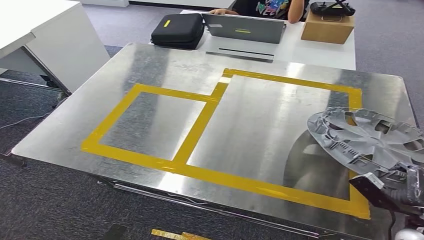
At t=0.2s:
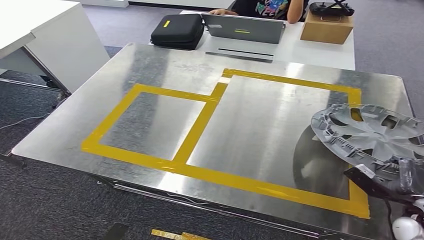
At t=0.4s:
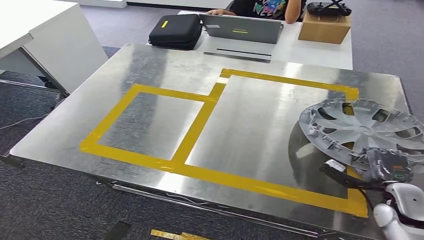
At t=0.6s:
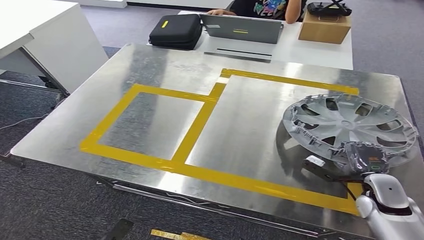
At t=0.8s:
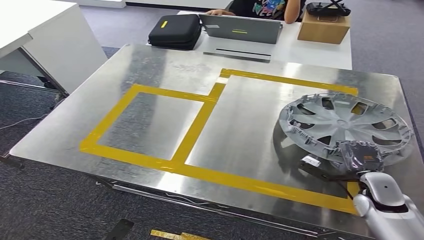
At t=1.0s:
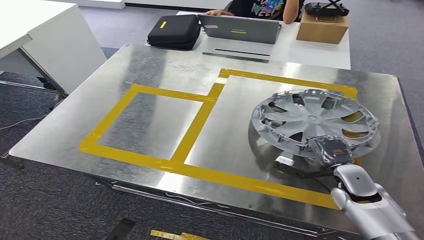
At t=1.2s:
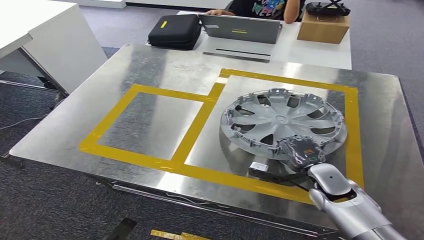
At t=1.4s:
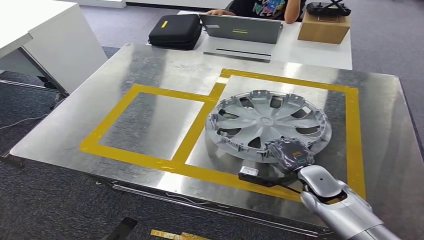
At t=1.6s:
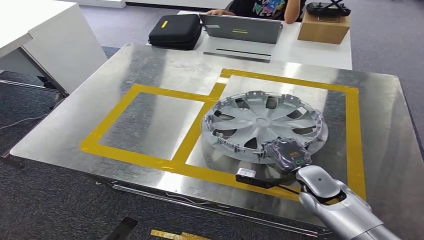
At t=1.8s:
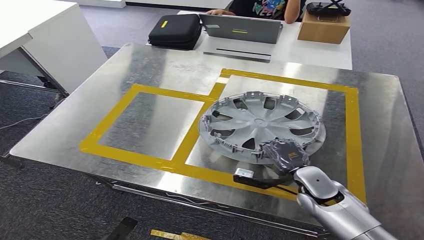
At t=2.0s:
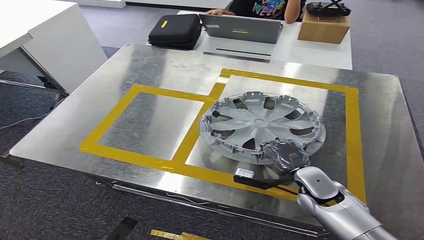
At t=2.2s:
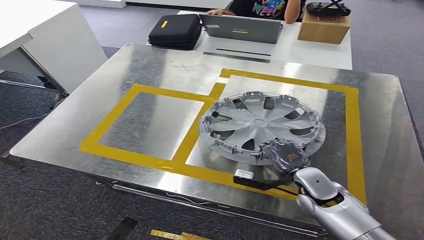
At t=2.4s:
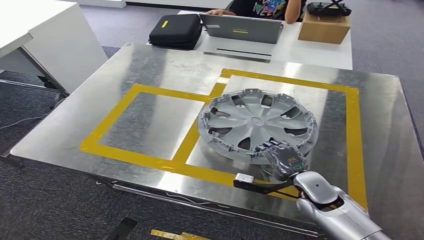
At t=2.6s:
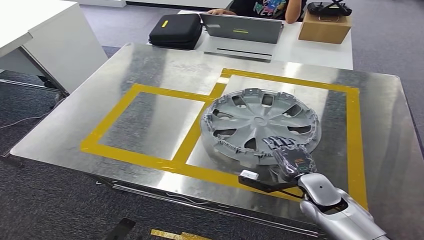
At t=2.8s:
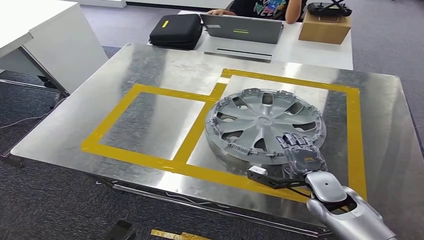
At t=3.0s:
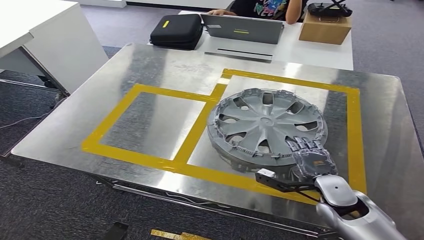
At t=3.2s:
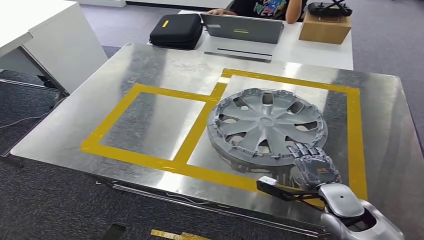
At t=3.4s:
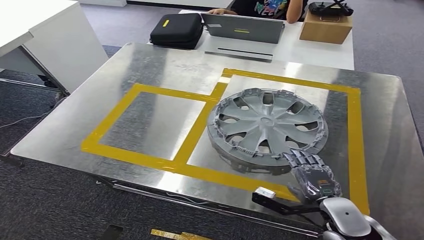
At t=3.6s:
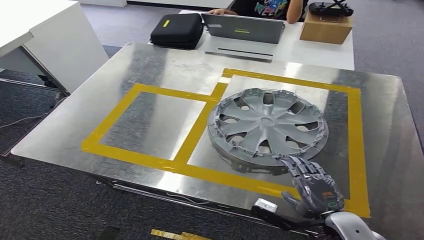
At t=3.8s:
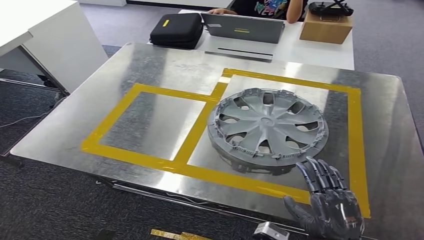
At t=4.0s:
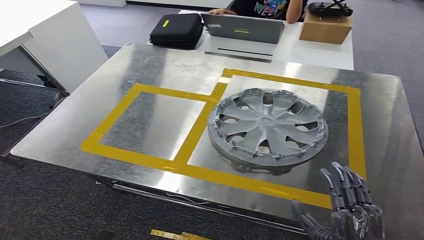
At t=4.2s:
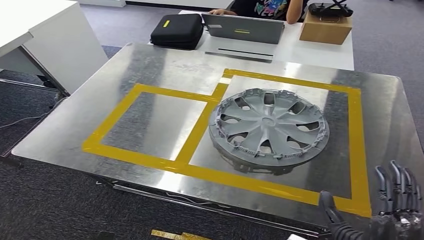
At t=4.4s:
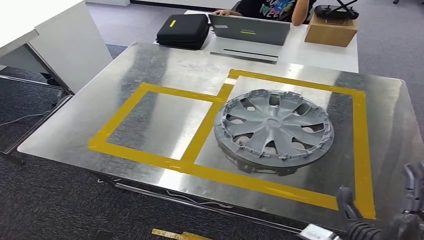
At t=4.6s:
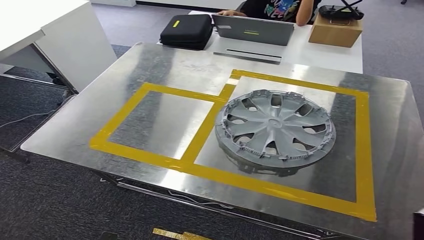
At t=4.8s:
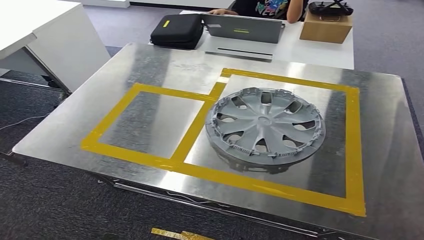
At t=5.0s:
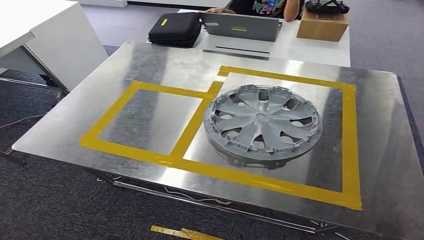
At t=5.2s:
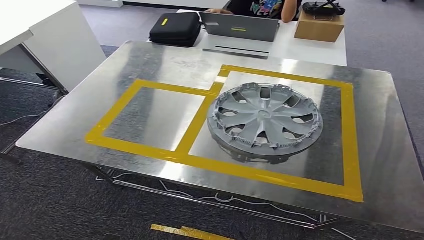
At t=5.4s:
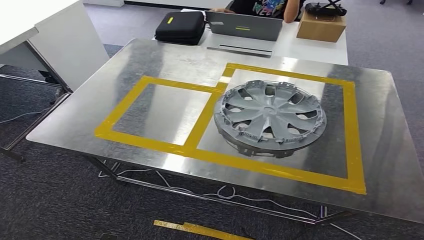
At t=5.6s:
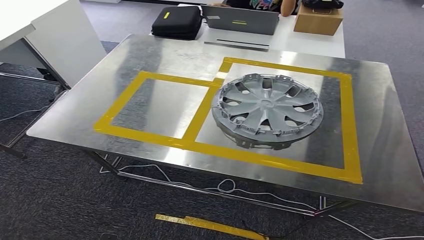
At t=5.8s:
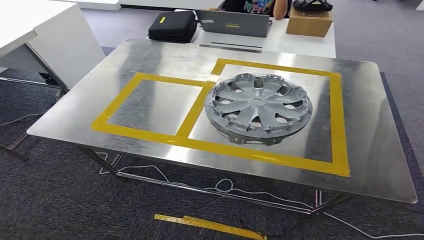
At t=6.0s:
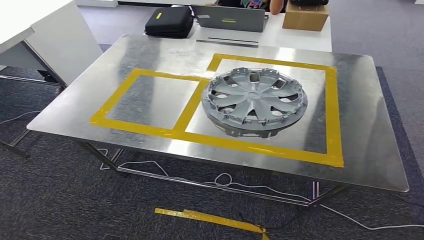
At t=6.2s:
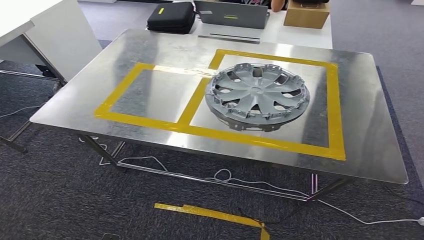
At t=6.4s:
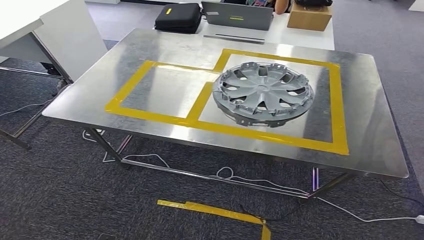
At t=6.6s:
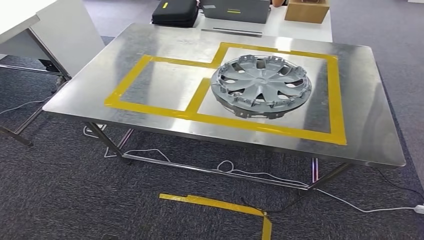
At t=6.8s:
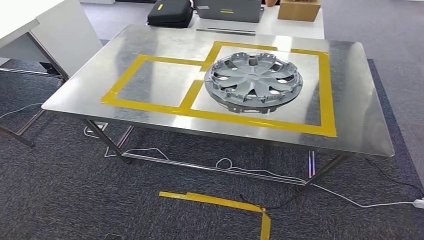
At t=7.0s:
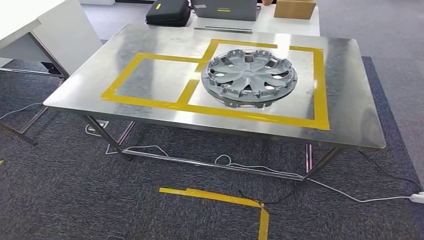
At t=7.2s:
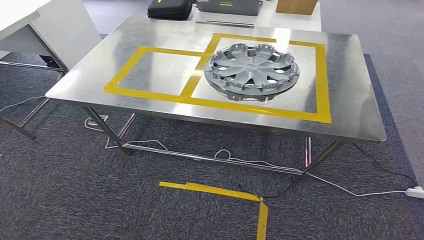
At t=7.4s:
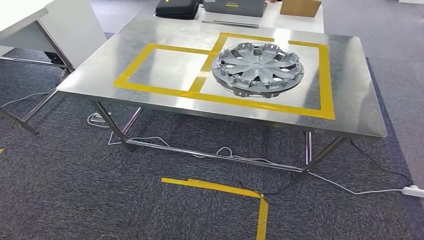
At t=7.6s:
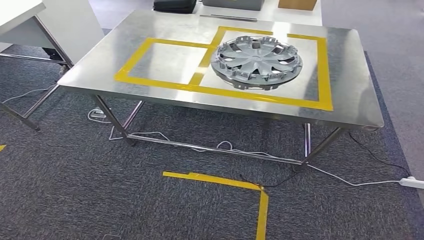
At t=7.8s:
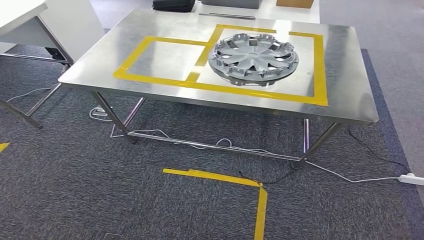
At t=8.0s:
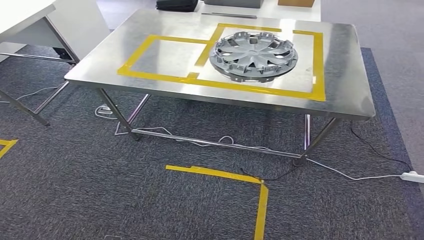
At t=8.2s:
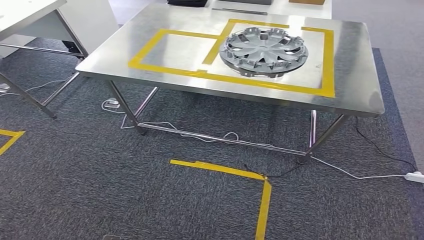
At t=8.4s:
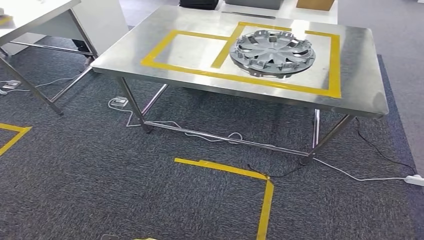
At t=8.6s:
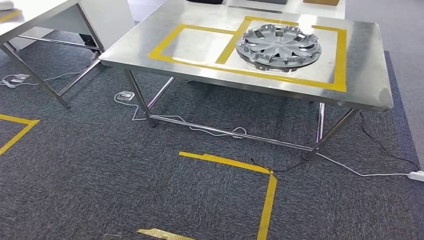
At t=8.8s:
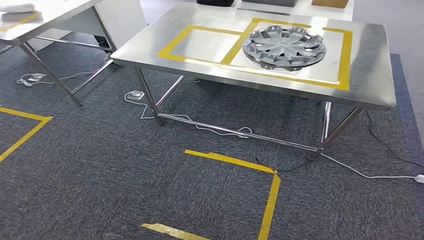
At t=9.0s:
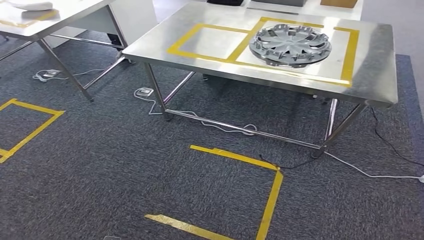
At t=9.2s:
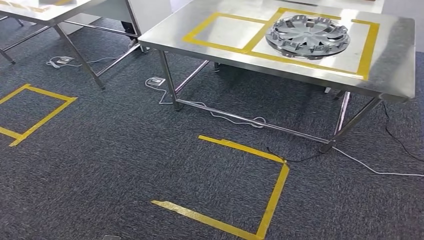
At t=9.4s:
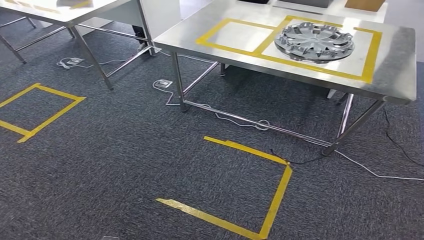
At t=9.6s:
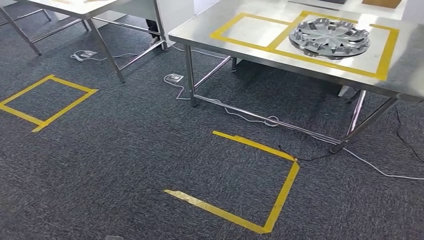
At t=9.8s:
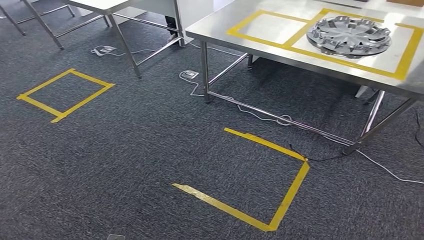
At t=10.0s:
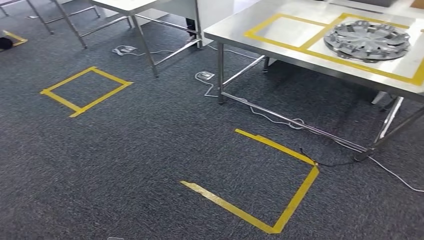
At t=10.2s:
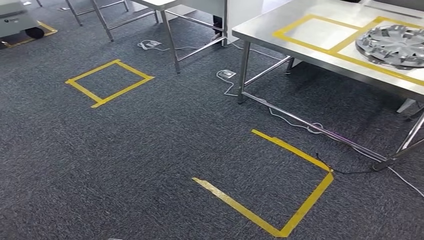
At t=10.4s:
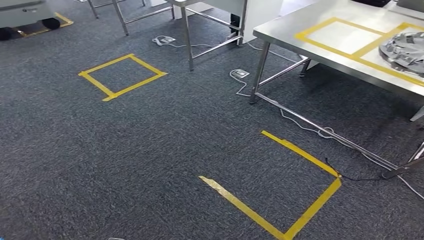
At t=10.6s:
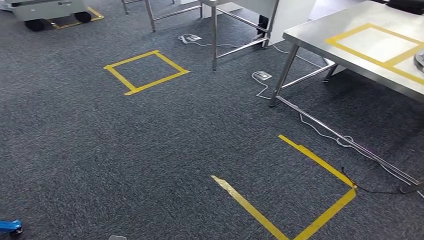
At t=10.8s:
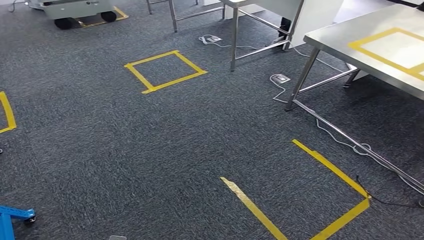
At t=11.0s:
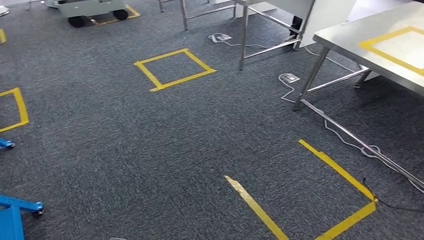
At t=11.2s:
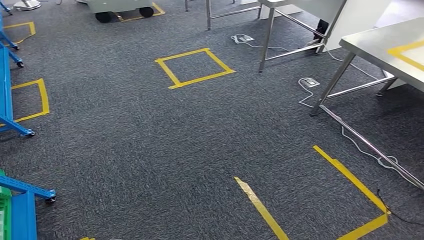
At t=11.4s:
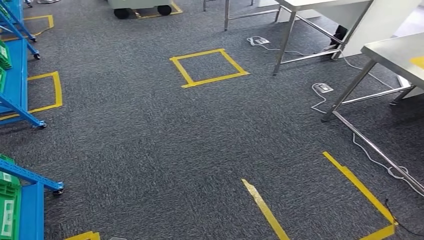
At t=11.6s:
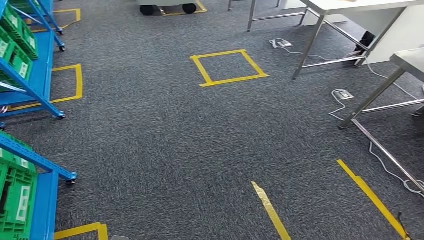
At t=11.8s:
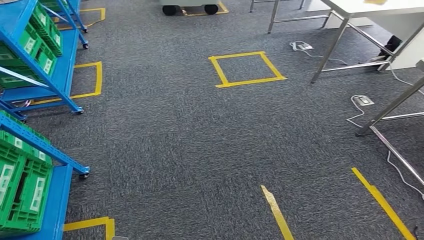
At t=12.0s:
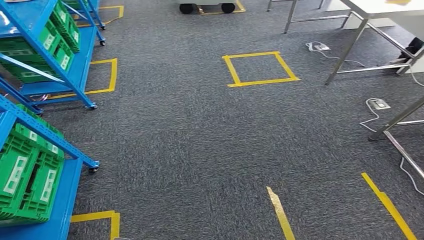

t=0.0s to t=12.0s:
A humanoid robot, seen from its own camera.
Step, t=0.0s to t=4.2s: Insert the small component into the corresponding slot on the workbench.

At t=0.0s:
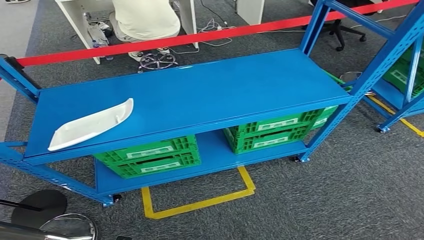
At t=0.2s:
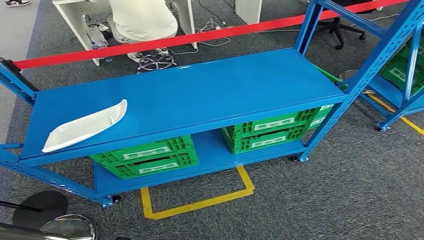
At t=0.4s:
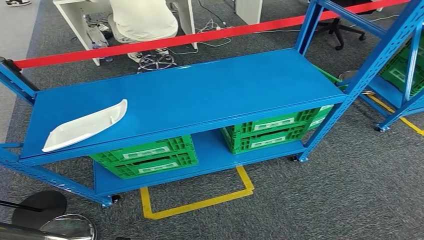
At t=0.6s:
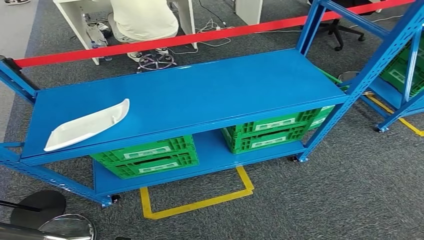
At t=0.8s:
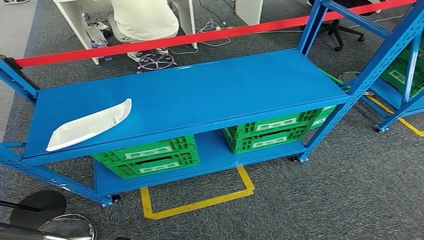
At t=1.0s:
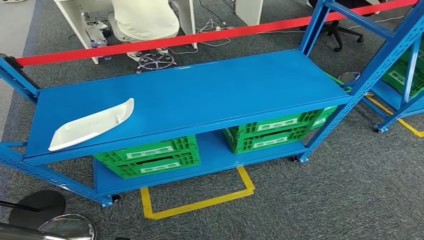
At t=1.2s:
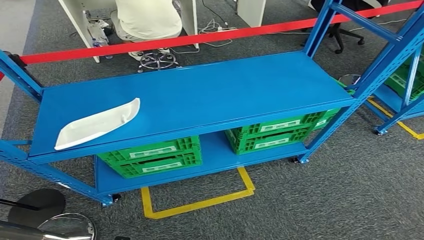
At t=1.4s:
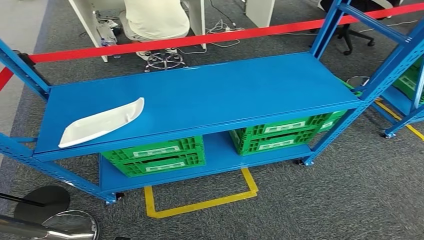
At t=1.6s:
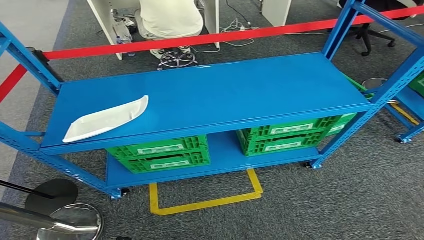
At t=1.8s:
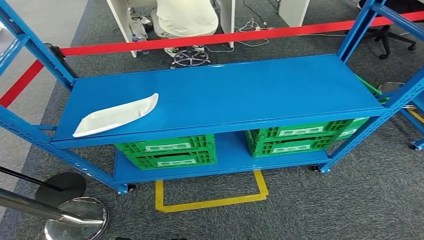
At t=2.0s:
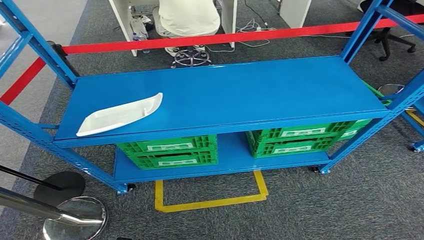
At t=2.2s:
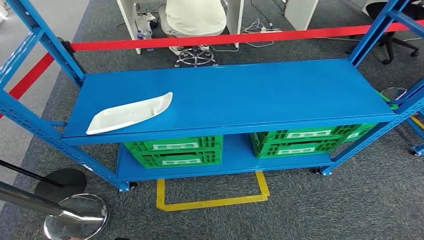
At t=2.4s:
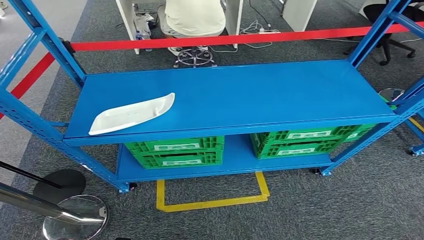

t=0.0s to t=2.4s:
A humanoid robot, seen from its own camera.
Step, t=0.0s to t=2.4s: Move to the initial position of the workbench.
t=0.0s to t=1.2s: Neither hand changes place.
